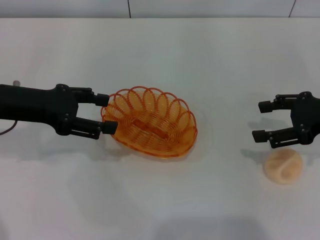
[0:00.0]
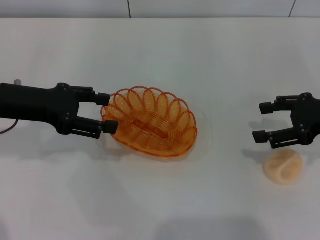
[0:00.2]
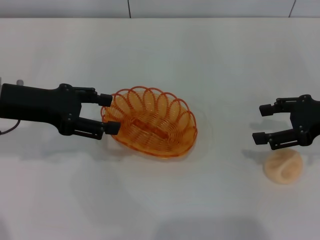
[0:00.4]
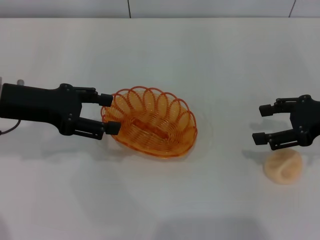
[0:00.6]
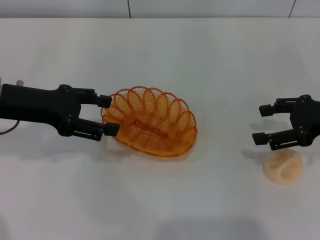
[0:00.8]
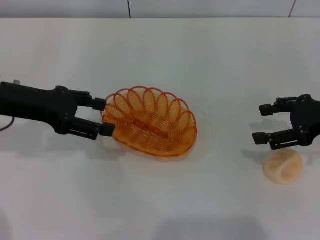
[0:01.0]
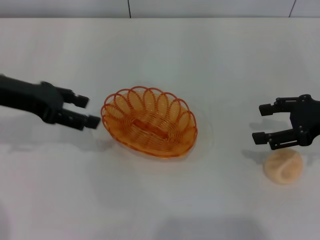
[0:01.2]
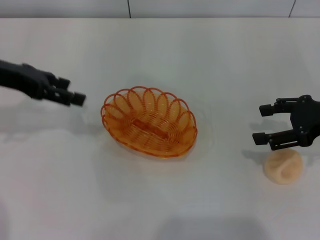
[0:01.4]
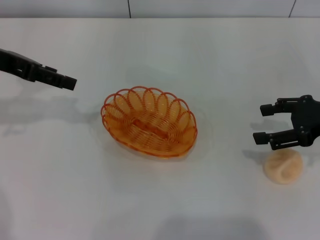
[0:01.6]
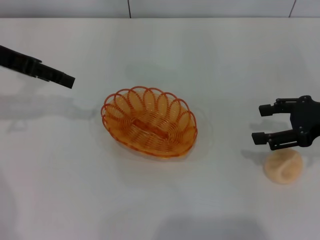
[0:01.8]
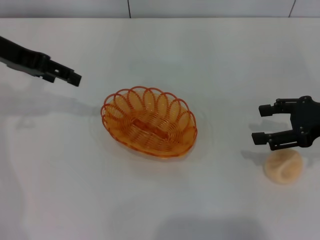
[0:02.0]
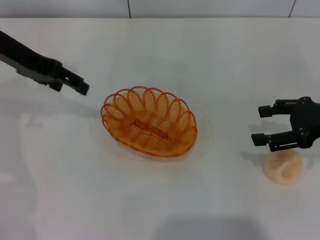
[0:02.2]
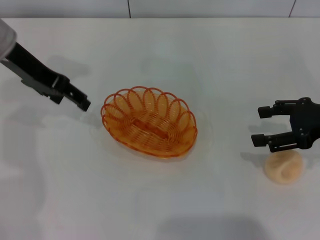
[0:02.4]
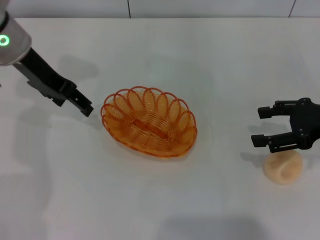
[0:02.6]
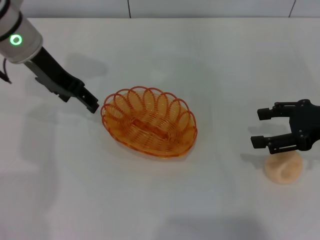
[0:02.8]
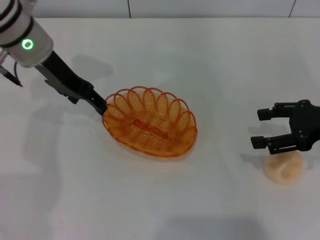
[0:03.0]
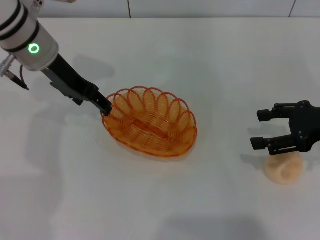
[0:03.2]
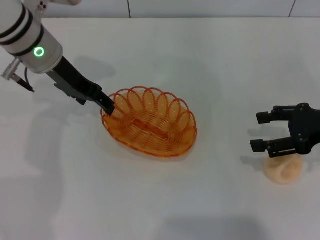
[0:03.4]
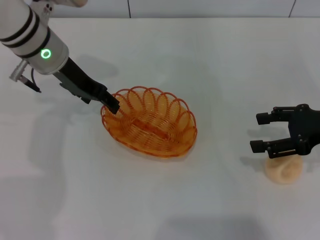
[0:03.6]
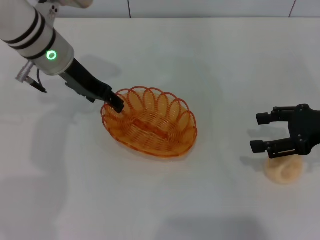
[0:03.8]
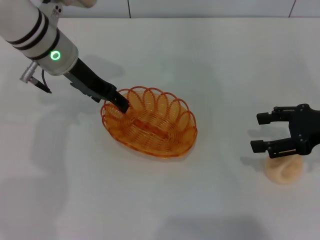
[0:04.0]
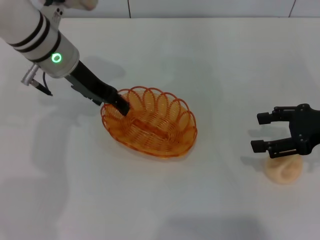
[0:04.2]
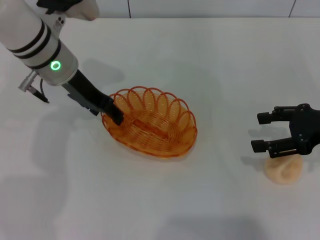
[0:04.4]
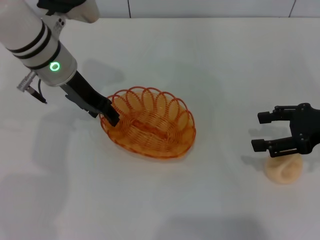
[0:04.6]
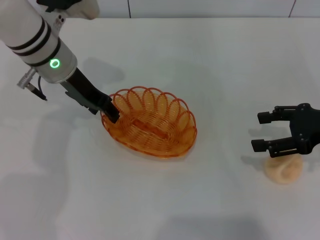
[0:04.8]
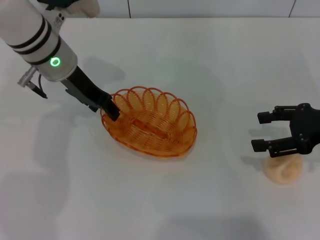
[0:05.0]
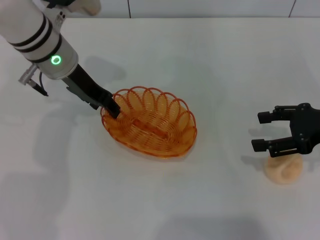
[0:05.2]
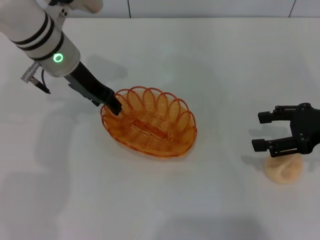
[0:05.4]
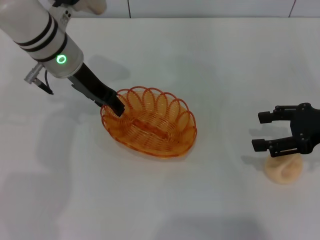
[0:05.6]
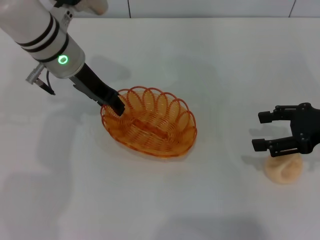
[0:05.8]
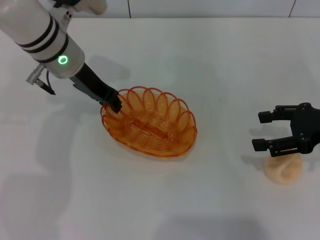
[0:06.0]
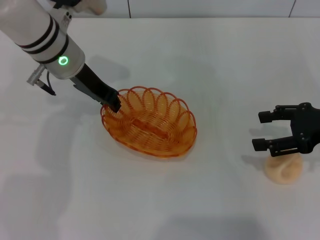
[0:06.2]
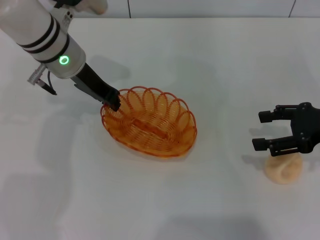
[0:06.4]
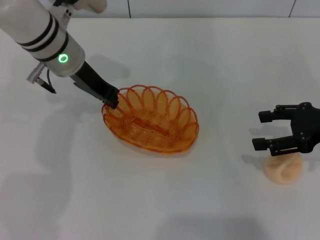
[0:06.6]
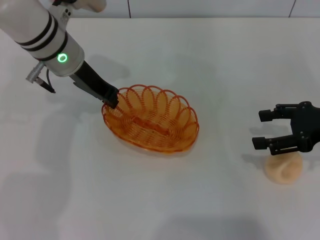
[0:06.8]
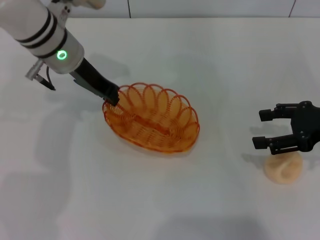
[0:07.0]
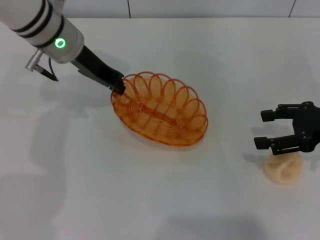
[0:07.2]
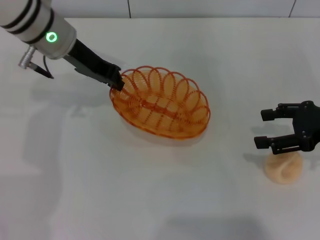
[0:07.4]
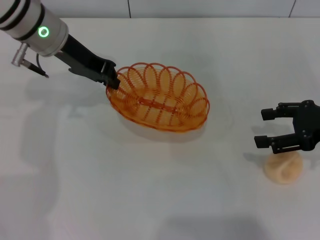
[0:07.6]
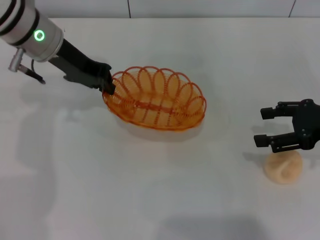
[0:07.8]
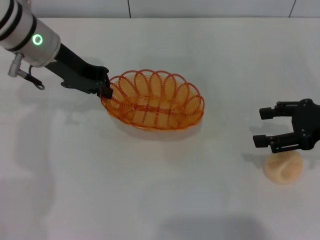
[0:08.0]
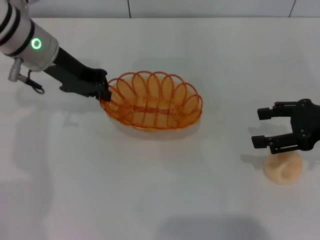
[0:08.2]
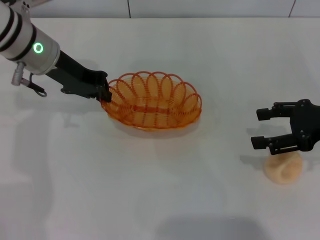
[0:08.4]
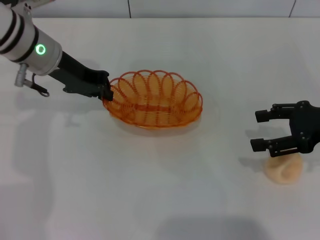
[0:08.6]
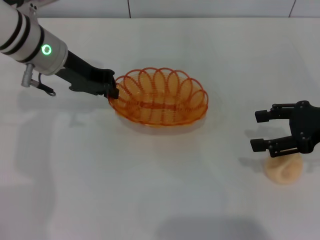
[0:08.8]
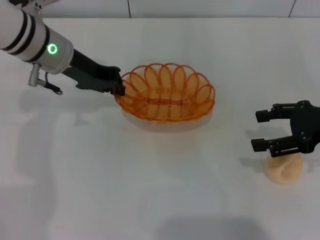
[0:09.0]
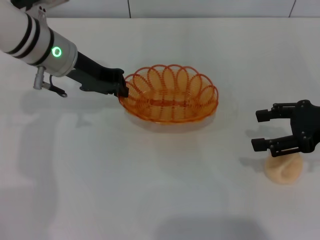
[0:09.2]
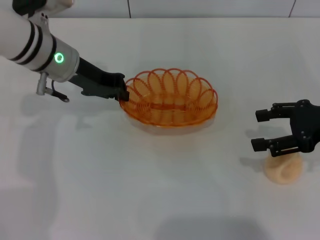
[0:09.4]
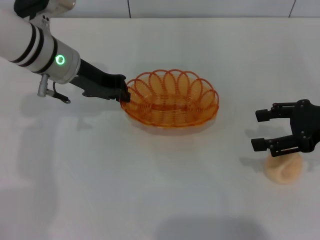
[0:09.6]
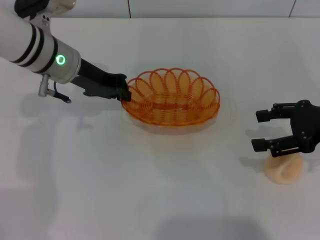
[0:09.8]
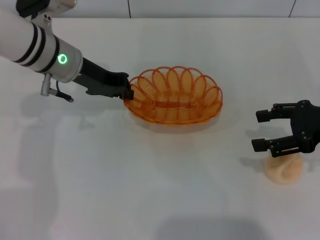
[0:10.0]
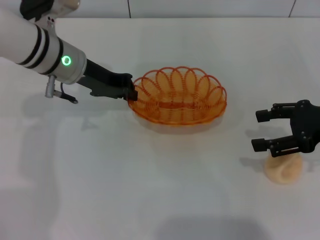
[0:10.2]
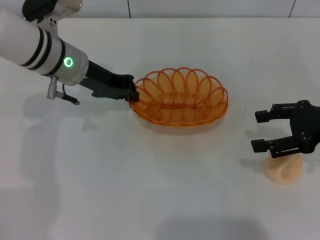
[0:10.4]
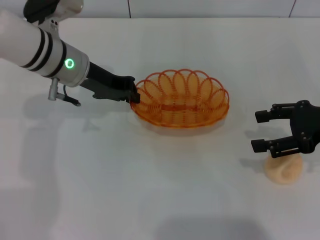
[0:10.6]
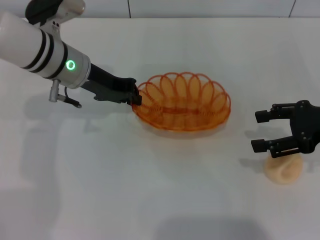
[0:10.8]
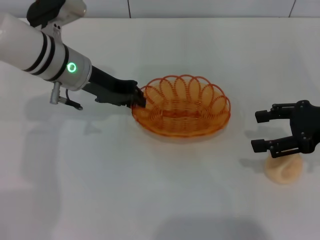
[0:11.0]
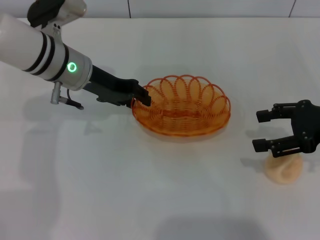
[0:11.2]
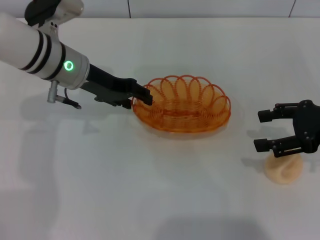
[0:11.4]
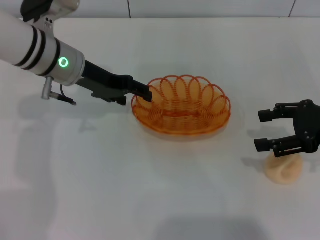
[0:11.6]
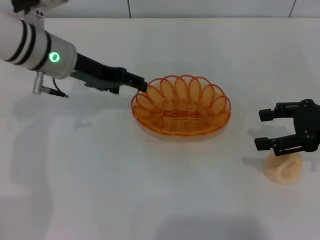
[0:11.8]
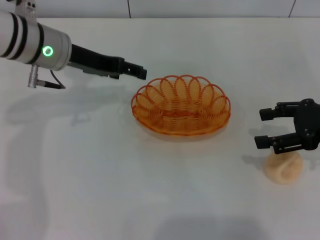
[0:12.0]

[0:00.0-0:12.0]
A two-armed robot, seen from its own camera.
Step, 0:00.0 to 0:07.4: Pick up the basket with the left gripper.
0:00.0 to 0:01.6: The left gripper travels upward by some 5 cm.
0:01.6 to 0:03.0: The left gripper shifts roughly 10 cm to the right.
0:03.0 to 0:04.4: The grippers move only a little.
0:04.4 to 0:06.0: Both grippers stay about where they are.
0:06.0 to 0:07.6: The left gripper closes up.
0:07.6 to 0:10.4: The grippers make only small movements.
0:10.4 to 0:12.0: The left gripper opens up.

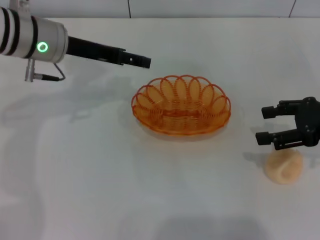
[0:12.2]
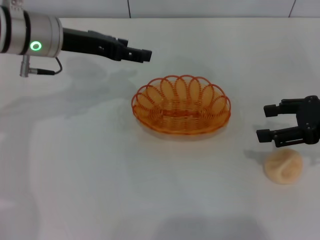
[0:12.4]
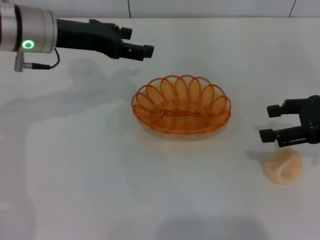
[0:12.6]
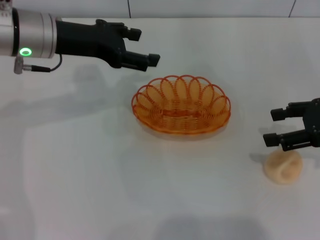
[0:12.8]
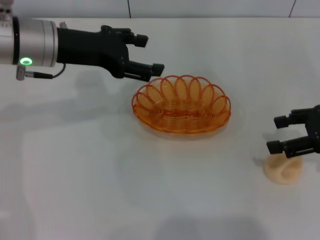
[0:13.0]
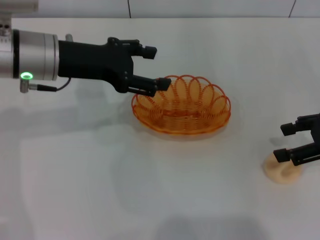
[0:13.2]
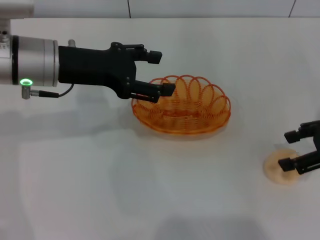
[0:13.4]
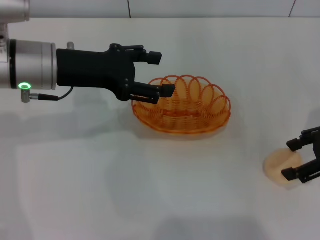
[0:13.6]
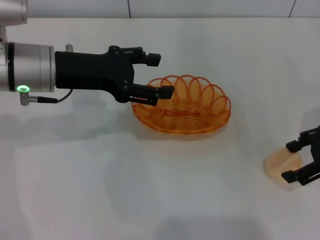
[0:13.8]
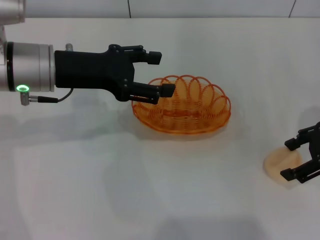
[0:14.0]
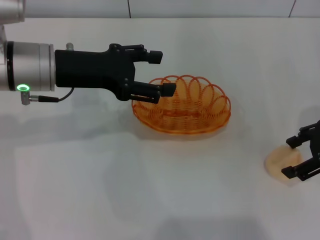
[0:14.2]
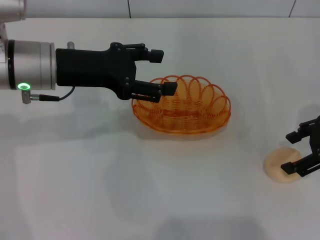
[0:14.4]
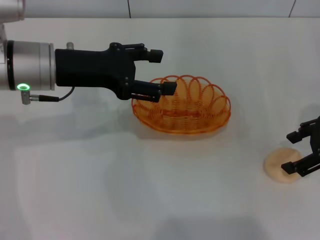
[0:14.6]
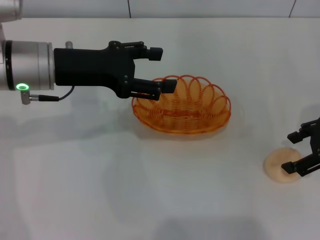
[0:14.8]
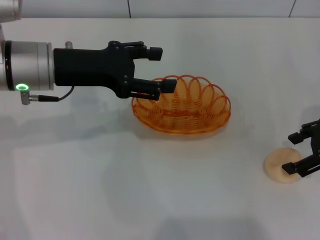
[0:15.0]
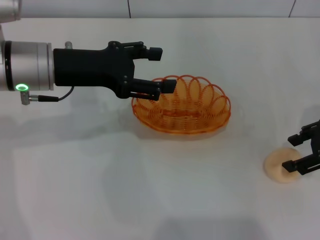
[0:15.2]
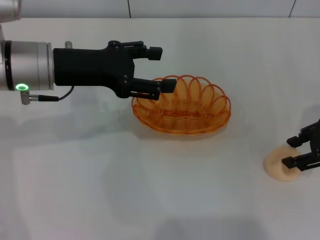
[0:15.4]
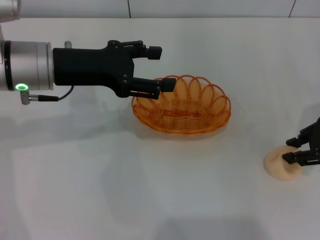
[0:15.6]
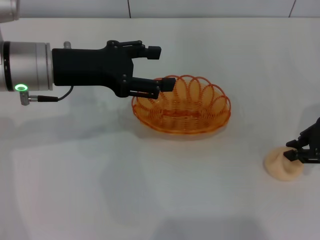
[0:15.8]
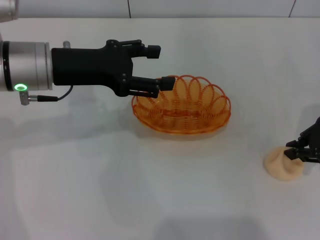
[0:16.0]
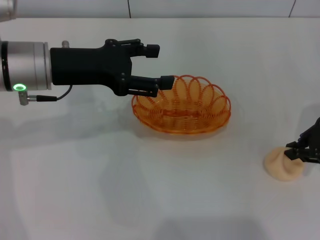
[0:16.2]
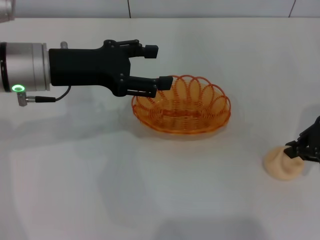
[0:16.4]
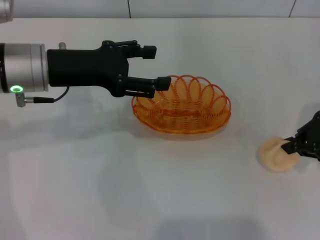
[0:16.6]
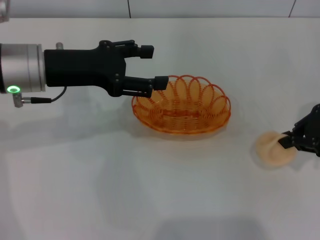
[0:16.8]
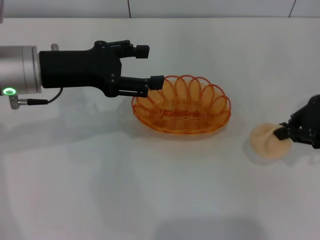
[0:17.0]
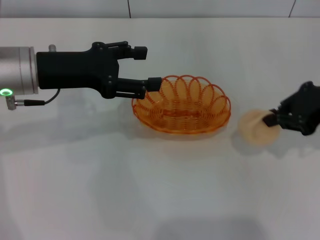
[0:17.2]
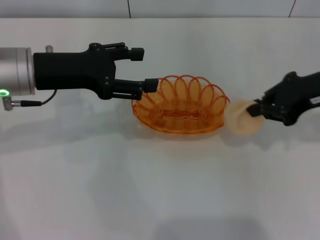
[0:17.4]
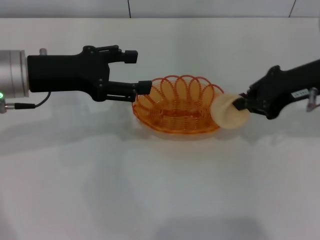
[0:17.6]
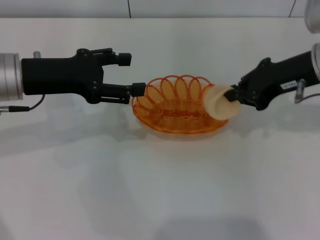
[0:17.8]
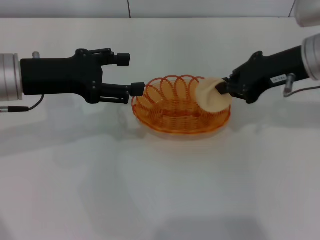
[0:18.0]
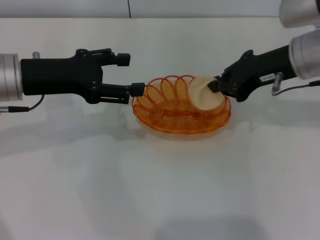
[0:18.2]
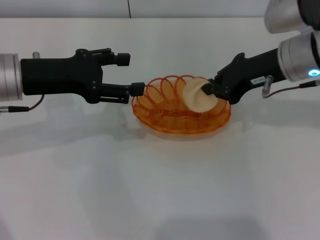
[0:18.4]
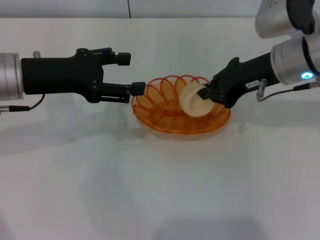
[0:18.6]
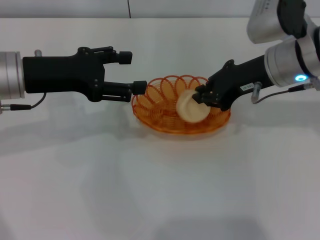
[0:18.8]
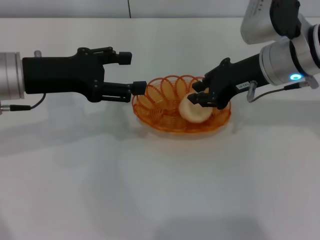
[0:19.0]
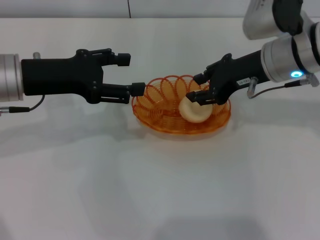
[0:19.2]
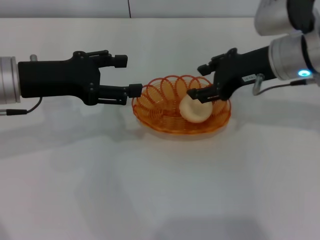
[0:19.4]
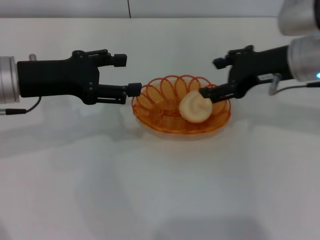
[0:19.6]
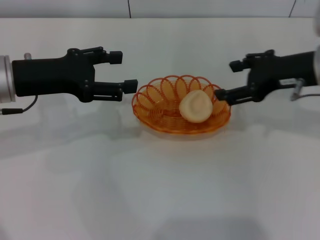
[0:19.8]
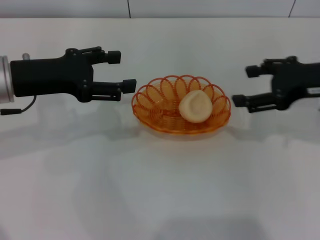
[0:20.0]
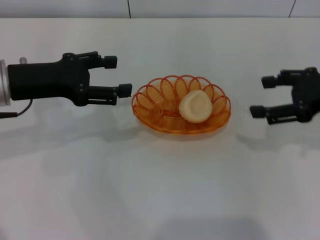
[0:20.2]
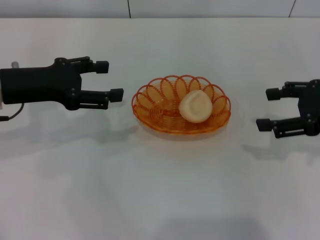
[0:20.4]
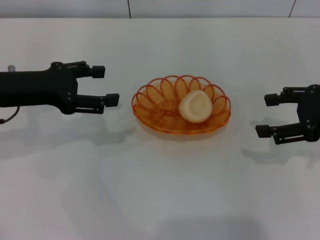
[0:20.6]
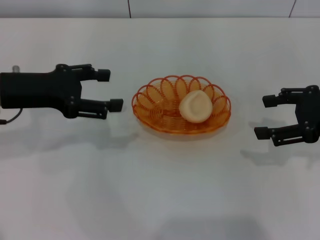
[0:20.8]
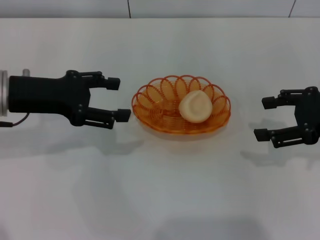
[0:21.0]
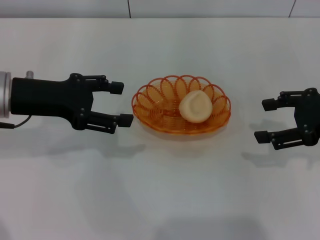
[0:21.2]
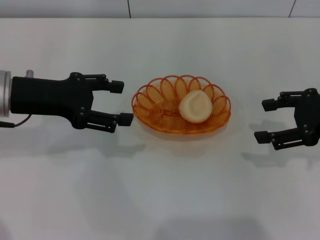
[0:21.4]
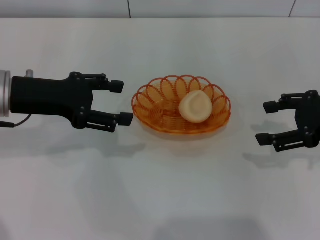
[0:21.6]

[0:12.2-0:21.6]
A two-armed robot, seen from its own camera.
Step, 0:12.4 to 0:17.0: Pick up the egg yolk pastry with the right gripper.
Step, 0:17.2 to 0:19.4: Place the egg yolk pastry into the basket with the right gripper.
0:12.2 to 0:13.8: The left gripper shifts some 5 cm backward.
0:13.8 to 0:15.4: The two grippers keep their place.
0:15.4 to 0:17.0: The right gripper closes its fingers.
0:17.0 to 0:18.4: The right gripper heads to the left and forward, covering roughly 10 cm.
0:18.4 to 0:20.0: The right gripper travels to the right by about 10 cm, and opens its fingers.
0:20.0 to 0:21.6: The grippers make only small movements.
